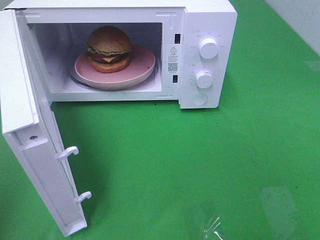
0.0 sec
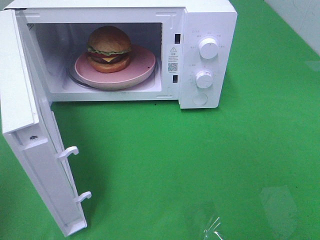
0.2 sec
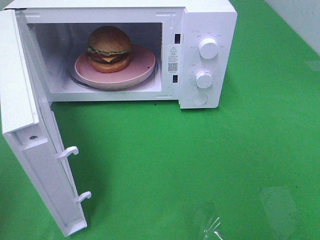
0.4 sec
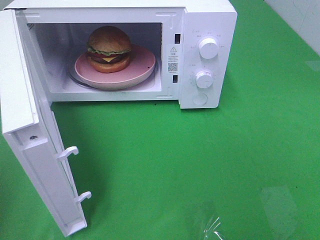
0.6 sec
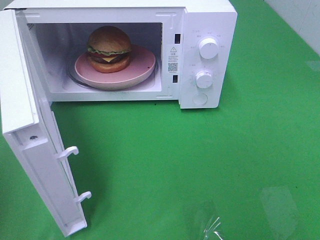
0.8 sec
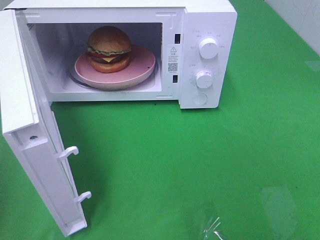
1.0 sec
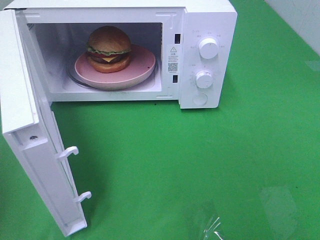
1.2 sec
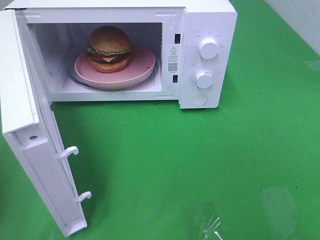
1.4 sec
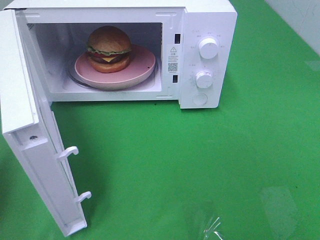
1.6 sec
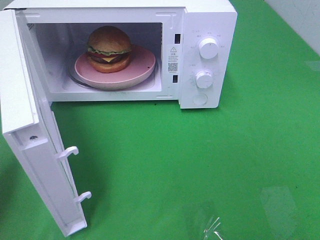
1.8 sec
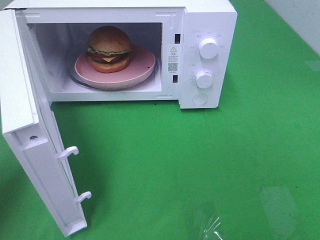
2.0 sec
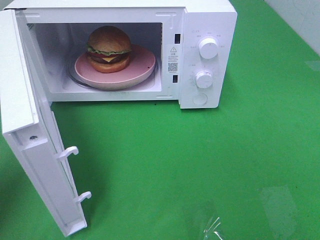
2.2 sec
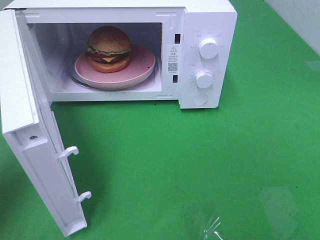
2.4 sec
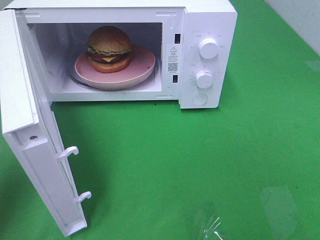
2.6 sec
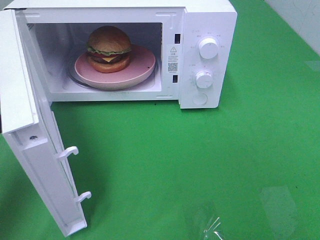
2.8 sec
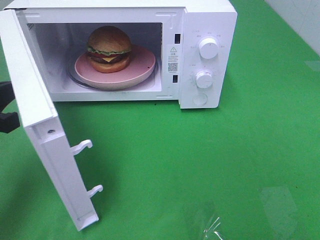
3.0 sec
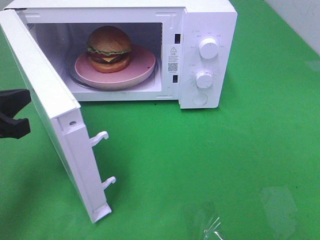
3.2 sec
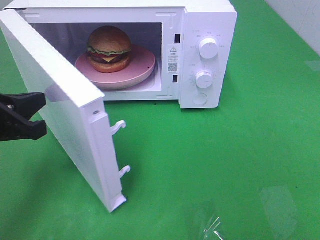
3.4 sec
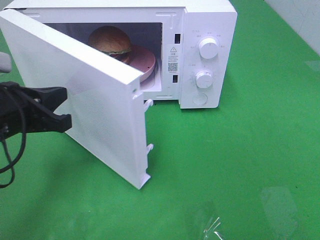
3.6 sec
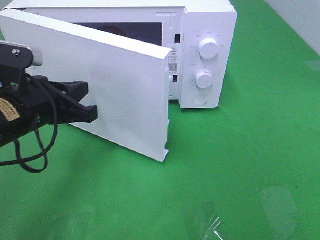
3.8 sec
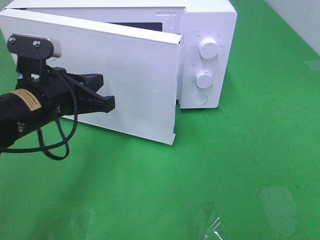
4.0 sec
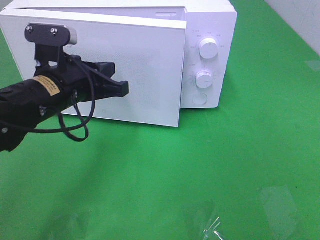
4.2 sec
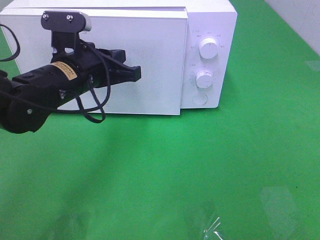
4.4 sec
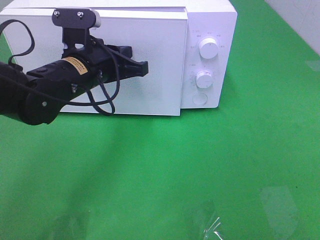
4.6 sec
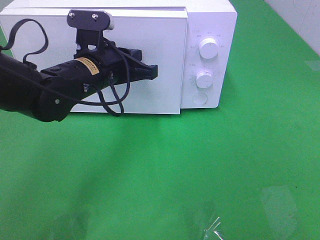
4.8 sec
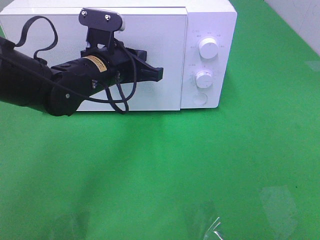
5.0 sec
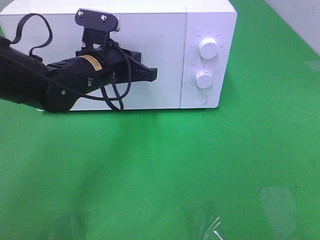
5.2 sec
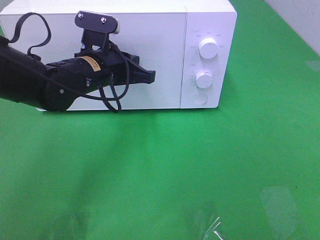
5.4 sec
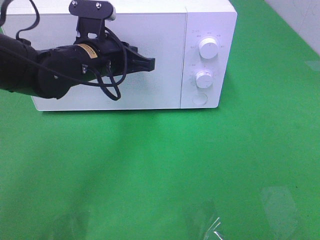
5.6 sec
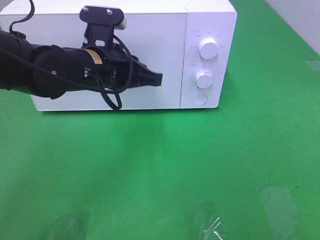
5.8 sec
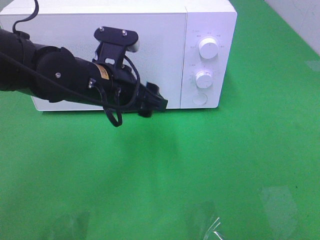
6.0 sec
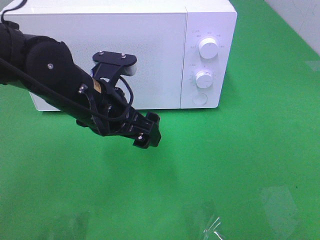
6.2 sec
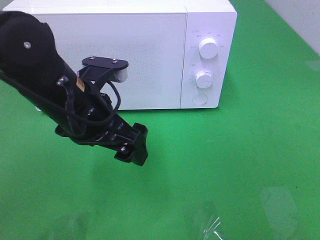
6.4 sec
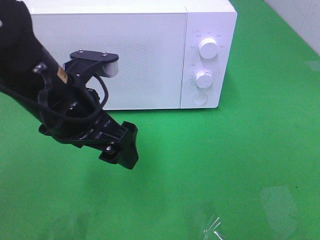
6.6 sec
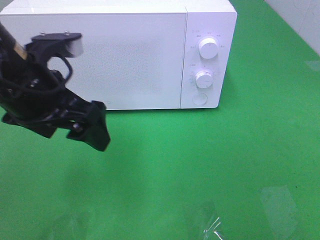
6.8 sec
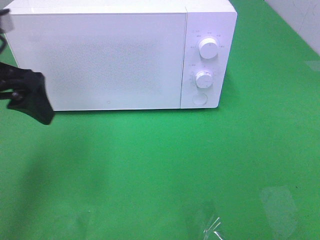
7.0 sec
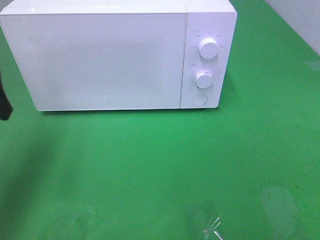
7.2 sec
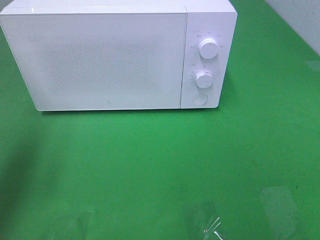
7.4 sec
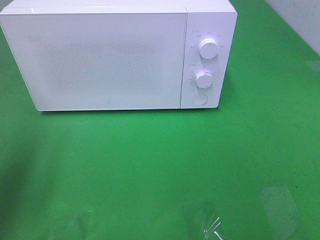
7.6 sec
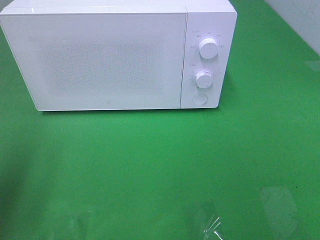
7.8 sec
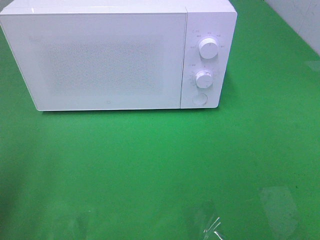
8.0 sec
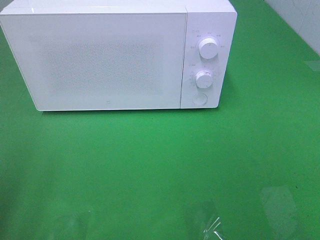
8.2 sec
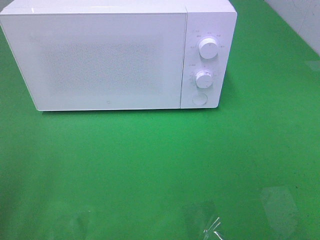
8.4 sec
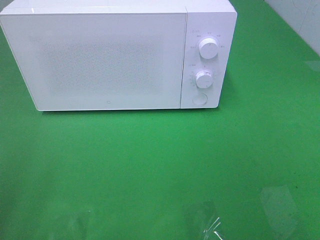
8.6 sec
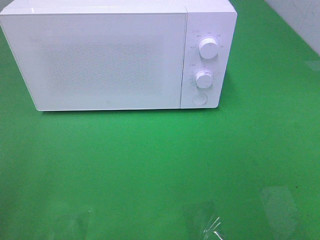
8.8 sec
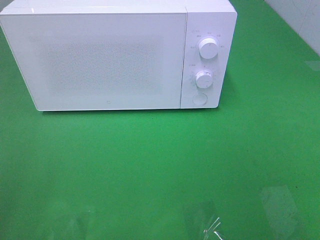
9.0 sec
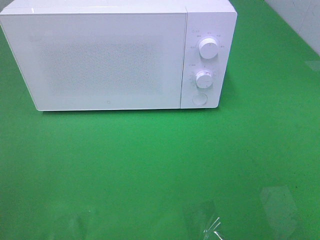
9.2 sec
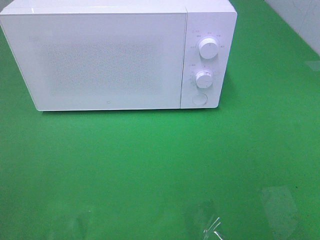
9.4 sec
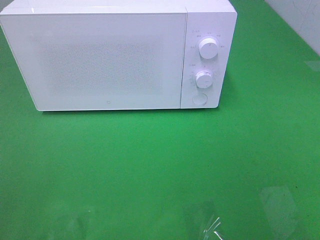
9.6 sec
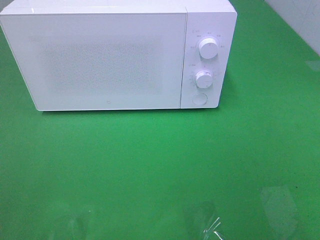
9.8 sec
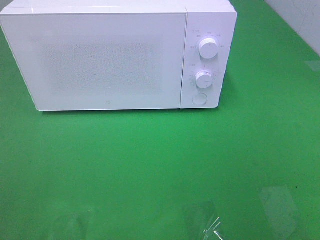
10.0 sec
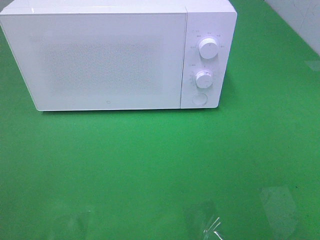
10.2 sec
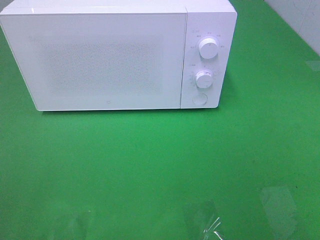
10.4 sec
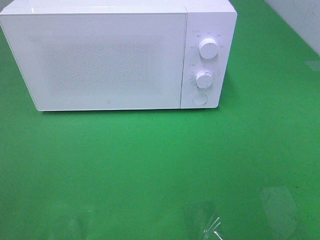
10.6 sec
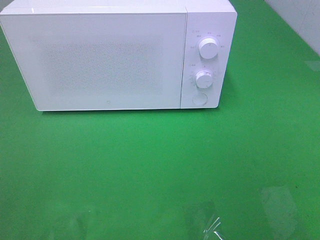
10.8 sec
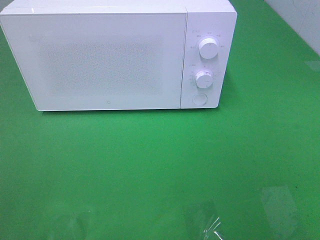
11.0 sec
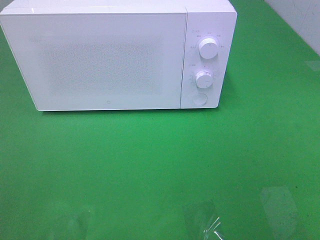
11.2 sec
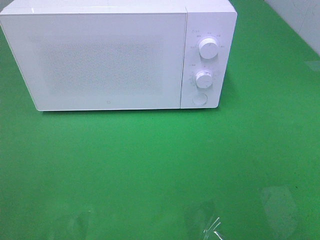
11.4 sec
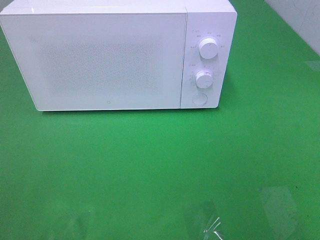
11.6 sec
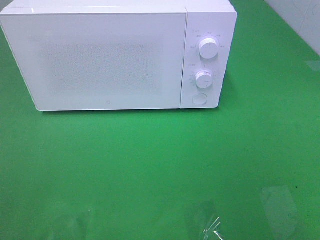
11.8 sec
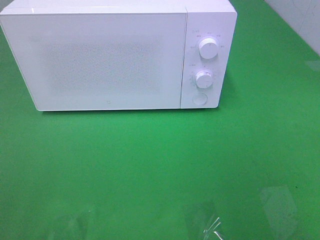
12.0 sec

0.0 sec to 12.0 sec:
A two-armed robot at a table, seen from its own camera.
Task of the whole recording: Heat the burger.
Step, 0.0 sec to 5.8 sec: Left hand: close the microwave door.
1.6 sec to 3.0 sec: The left gripper is displaced to the right by some 5 cm.
3.0 sec to 4.4 sec: The left gripper shifts roughly 20 cm to the right and forward.
4.4 sec to 6.0 sec: The left gripper opens up.
6.0 sec to 7.6 sec: The left gripper shifts some 25 cm to the left and upward.
7.6 sec to 9.0 sec: The left gripper is displaced backward by approximately 15 cm.

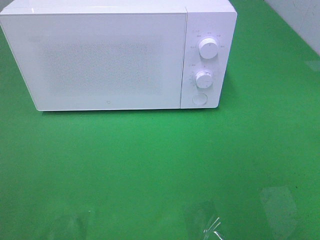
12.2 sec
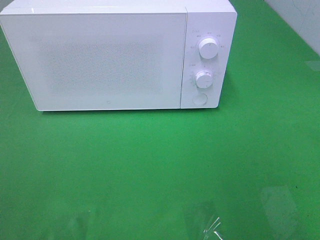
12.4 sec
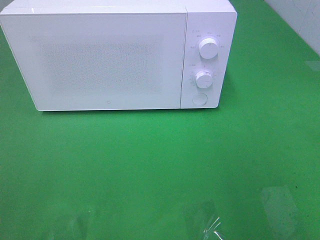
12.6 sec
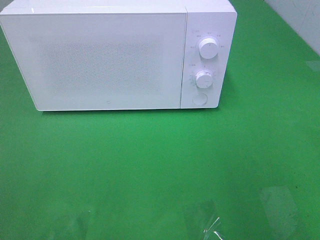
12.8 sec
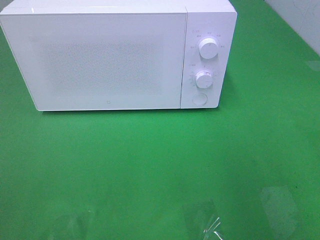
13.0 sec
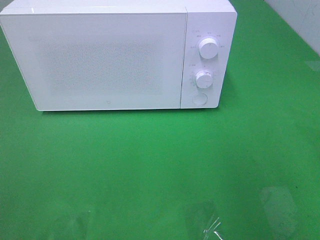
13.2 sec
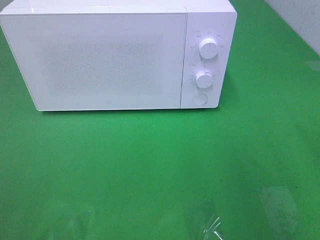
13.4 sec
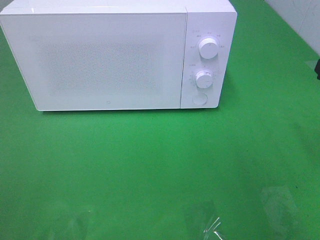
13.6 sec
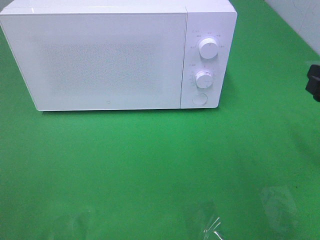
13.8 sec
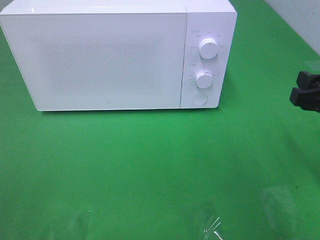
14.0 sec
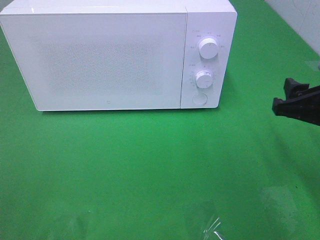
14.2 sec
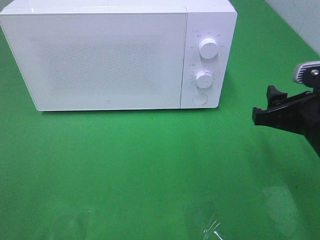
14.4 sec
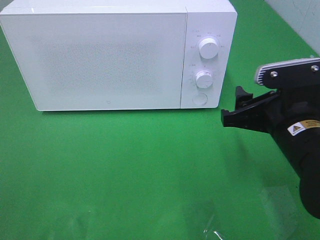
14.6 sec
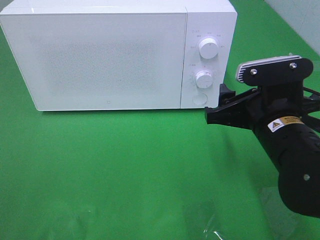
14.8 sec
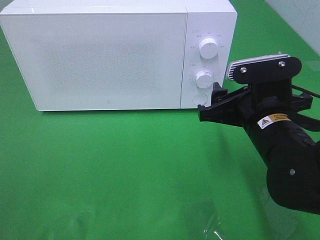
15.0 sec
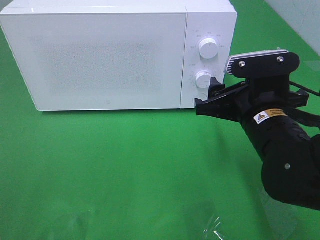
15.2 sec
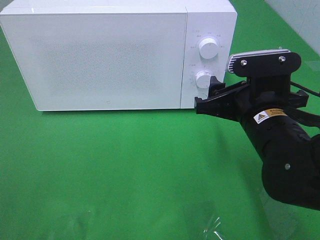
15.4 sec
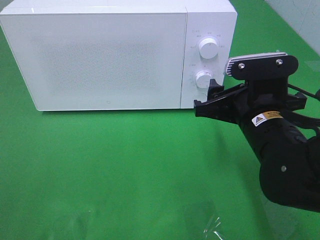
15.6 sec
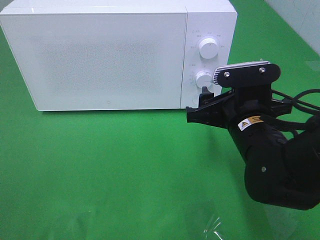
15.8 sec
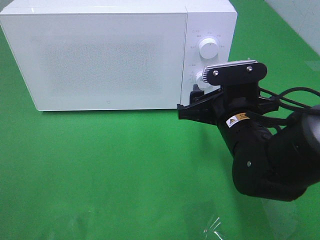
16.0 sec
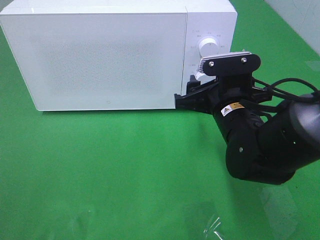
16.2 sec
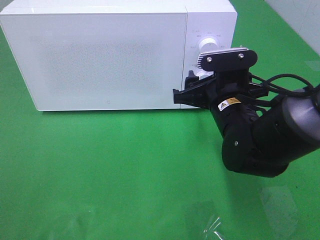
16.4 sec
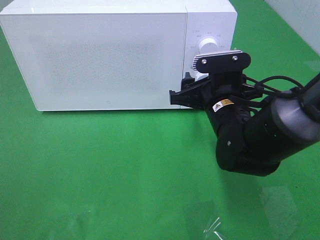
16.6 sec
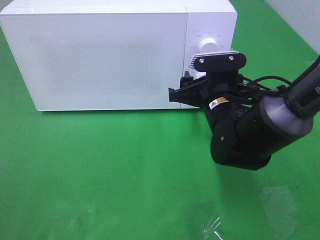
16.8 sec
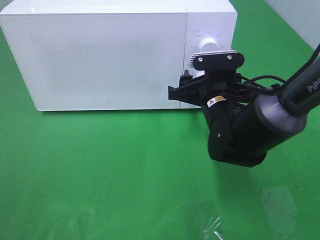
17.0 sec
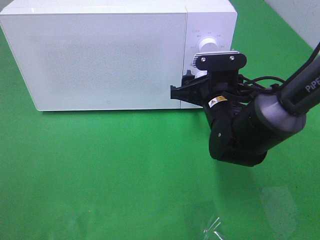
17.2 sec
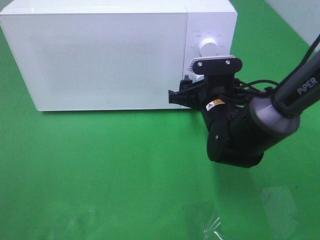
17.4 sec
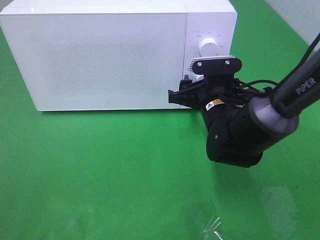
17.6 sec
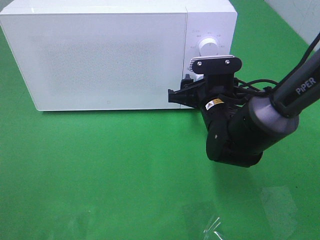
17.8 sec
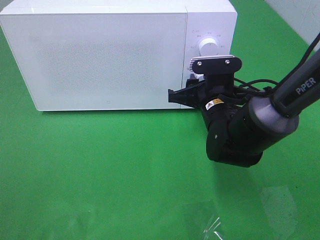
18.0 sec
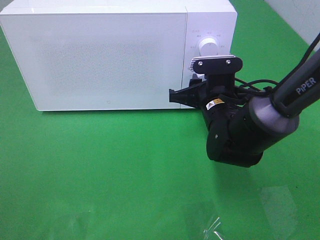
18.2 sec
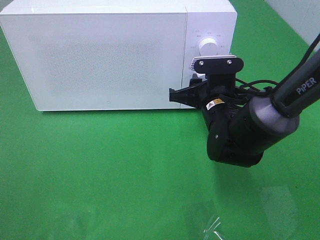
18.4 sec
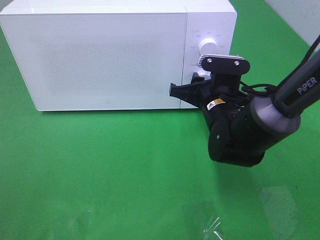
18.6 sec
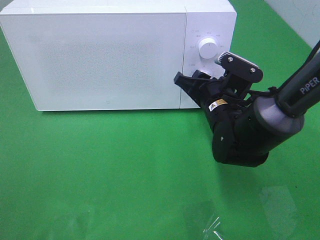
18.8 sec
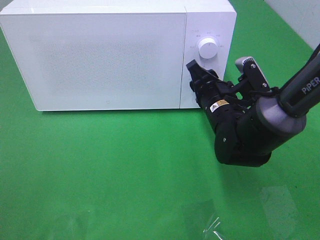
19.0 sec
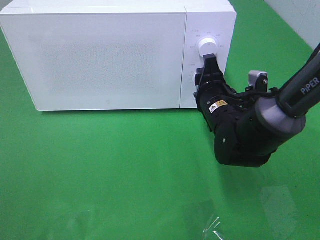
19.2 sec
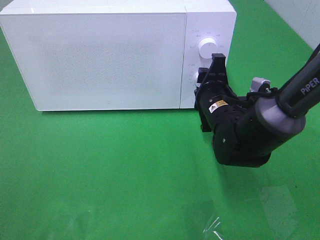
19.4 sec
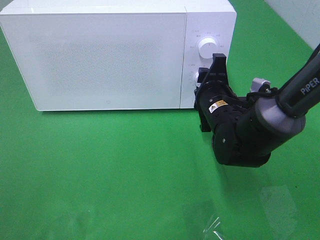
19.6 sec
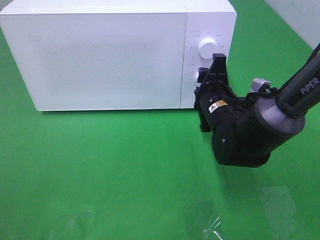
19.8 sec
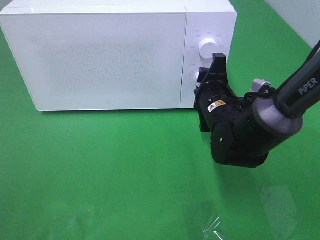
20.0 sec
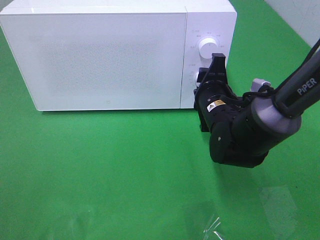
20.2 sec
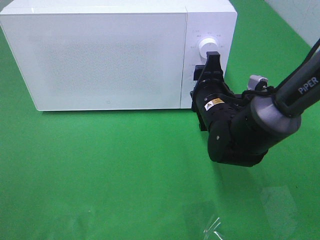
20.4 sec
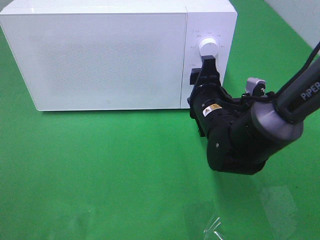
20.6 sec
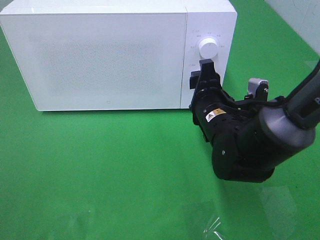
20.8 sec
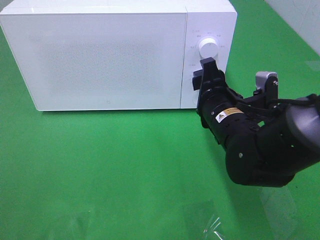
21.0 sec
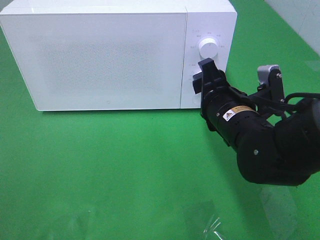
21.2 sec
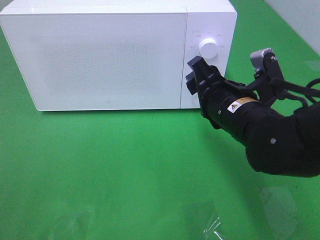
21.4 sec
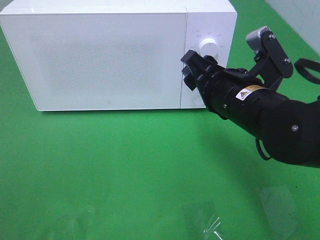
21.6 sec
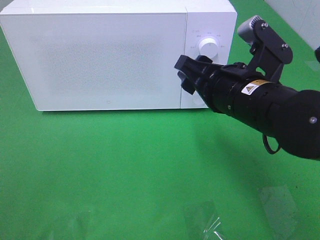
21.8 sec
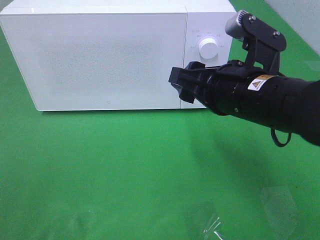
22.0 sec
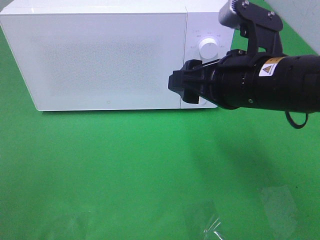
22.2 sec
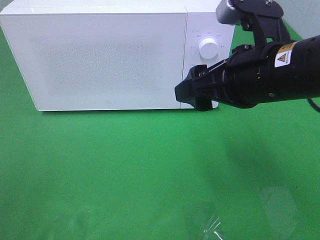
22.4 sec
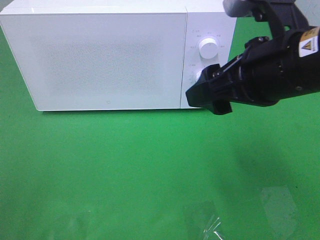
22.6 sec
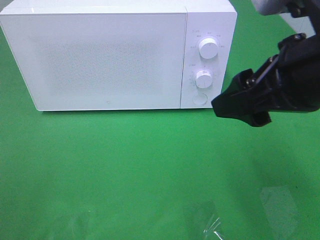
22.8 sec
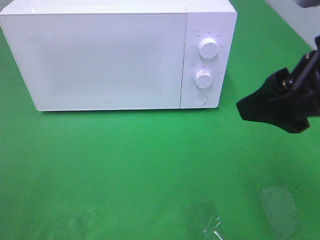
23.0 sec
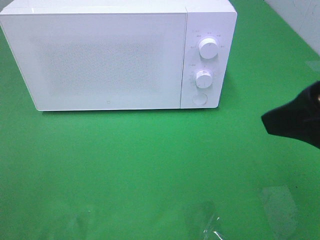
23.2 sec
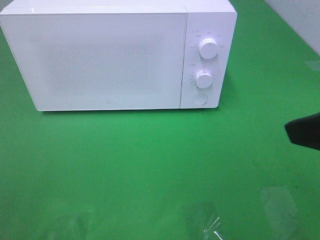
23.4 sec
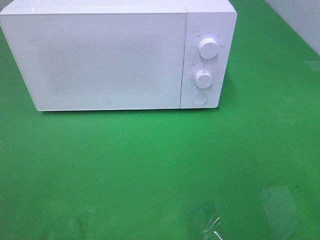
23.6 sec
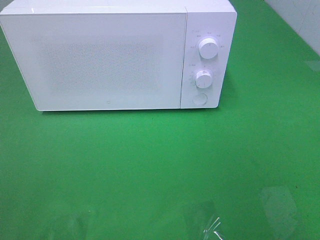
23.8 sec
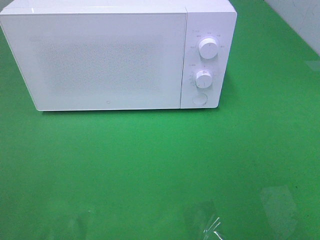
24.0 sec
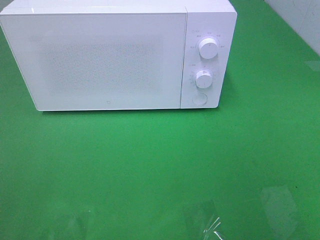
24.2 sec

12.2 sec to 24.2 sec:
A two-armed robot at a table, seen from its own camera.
Task of the whole recording: Heat the burger.
Step, 12.2 sec to 20.8 sec: Right hand: twist timer button.
13.8 sec to 15.2 sec: The right gripper shifts approximately 15 cm to the left.
15.2 sec to 16.6 sec: The right gripper shifts roughly 5 cm forward.
16.6 sec to 18.2 sec: The grippers make only small movements.
19.8 sec to 21.2 sec: The right gripper goes roughly 5 cm backward.
21.2 sec to 22.6 sec: The right gripper travels upward and backward by approximately 15 cm.
22.6 sec to 24.2 sec: The right gripper goes some 25 cm backward and to the right.
